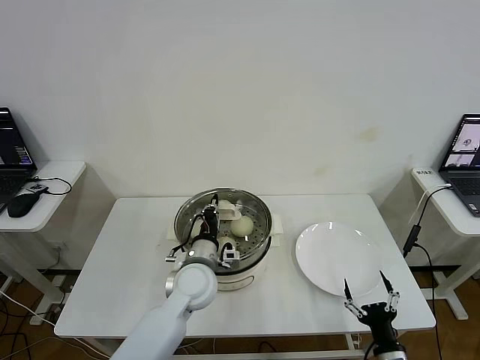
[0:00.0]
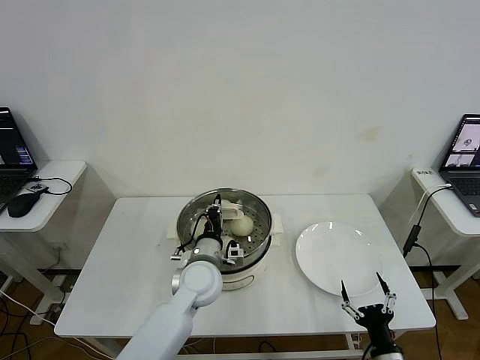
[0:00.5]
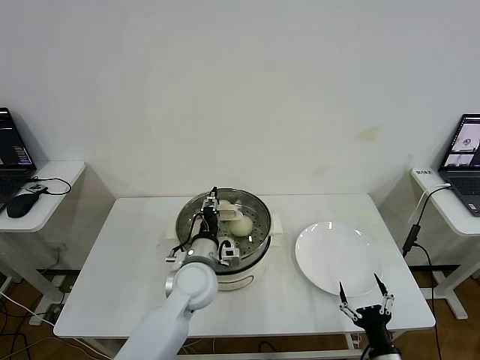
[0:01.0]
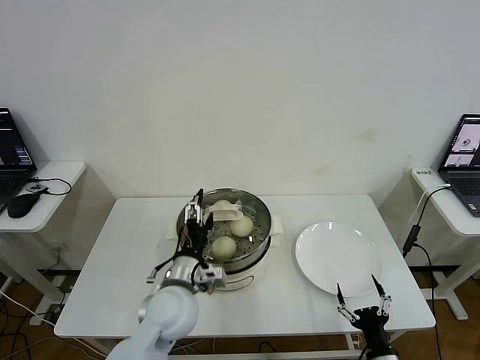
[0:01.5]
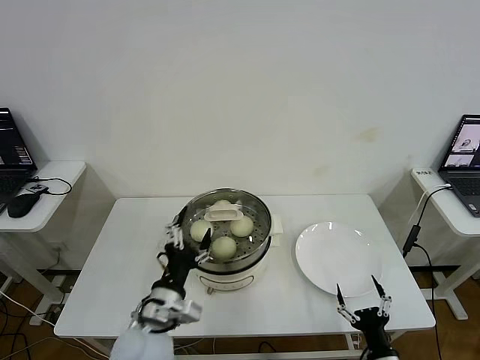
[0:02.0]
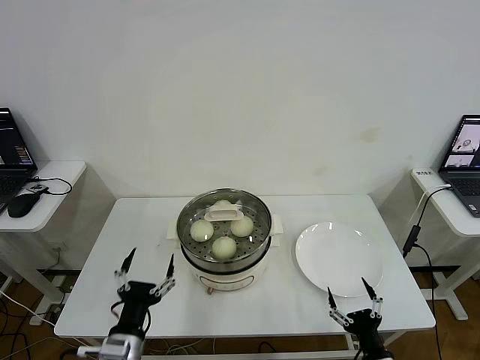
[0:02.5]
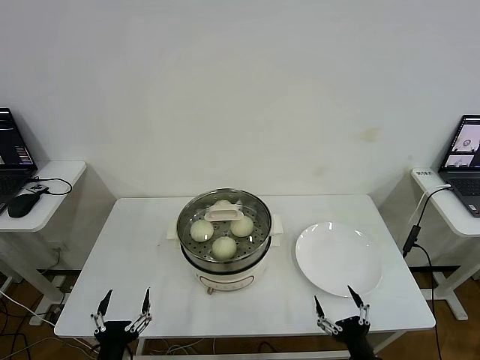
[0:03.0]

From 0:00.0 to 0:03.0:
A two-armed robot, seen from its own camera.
From 0:00.0 to 0:01.5: The left gripper is displaced backward by roughly 5 cm, and opens up.
From 0:01.5 to 0:03.0: The left gripper travels backward, to the left and downward by about 25 cm; the right gripper shifts by approximately 5 cm.
